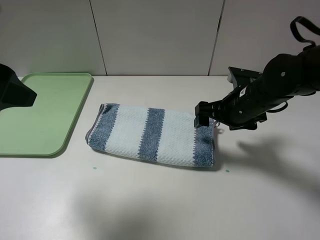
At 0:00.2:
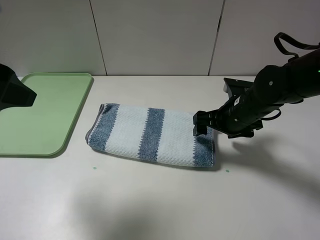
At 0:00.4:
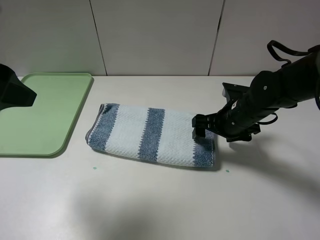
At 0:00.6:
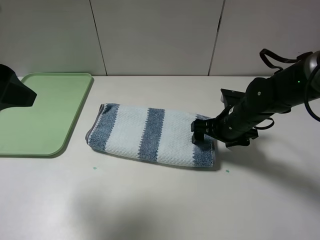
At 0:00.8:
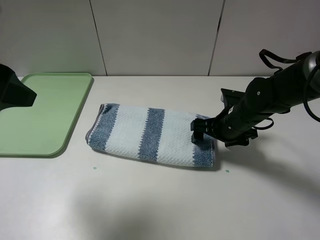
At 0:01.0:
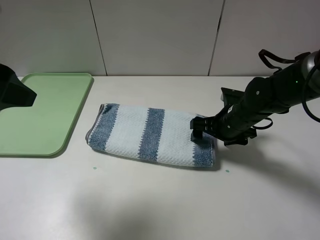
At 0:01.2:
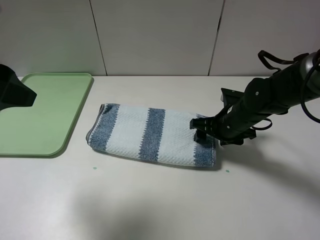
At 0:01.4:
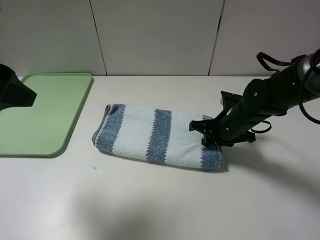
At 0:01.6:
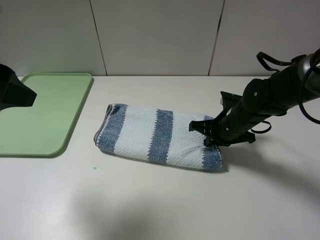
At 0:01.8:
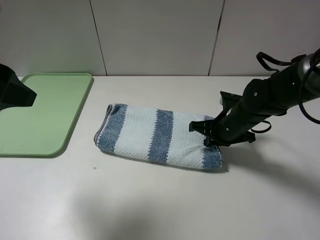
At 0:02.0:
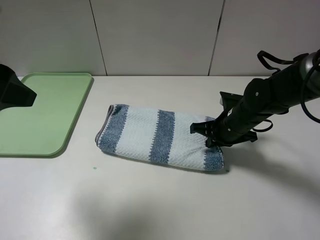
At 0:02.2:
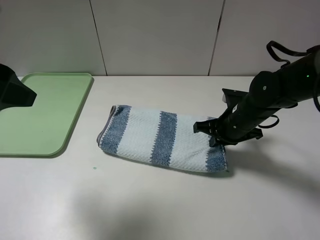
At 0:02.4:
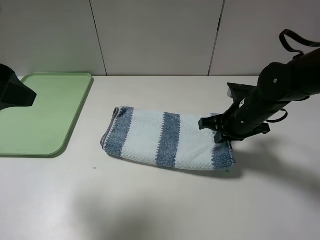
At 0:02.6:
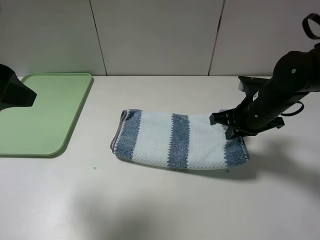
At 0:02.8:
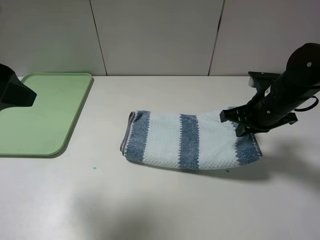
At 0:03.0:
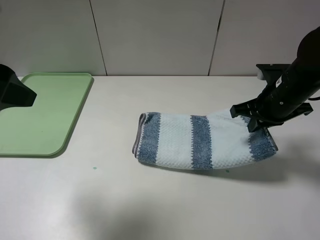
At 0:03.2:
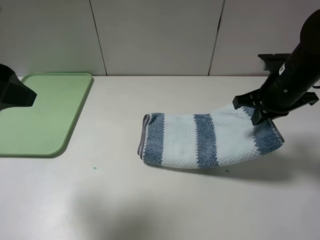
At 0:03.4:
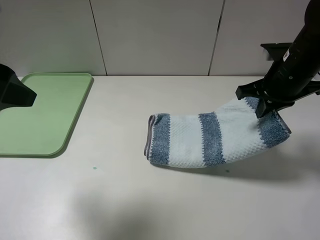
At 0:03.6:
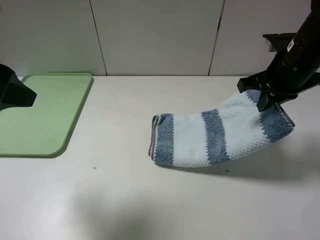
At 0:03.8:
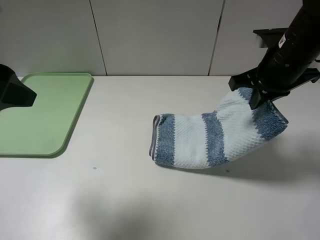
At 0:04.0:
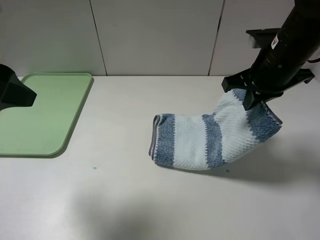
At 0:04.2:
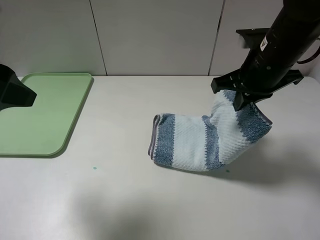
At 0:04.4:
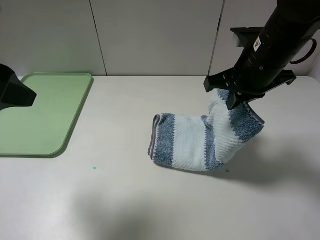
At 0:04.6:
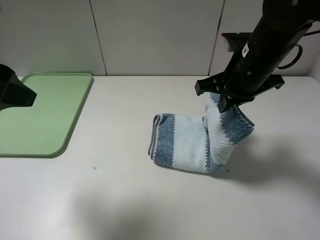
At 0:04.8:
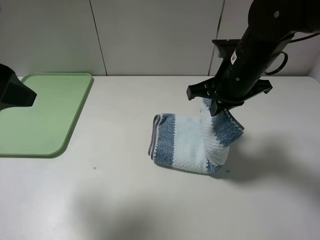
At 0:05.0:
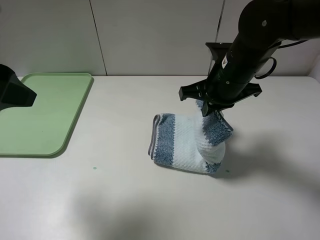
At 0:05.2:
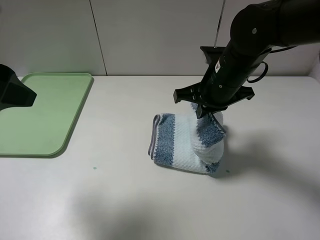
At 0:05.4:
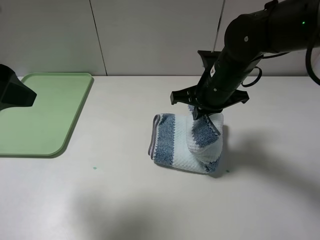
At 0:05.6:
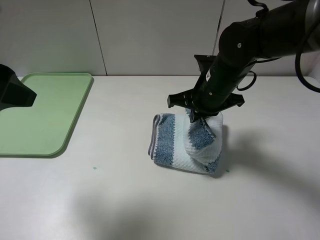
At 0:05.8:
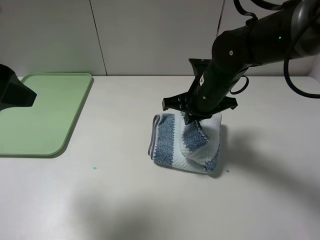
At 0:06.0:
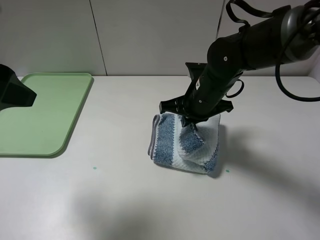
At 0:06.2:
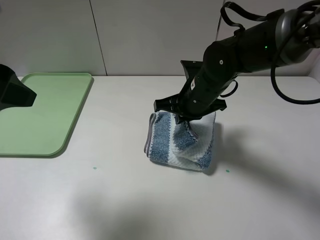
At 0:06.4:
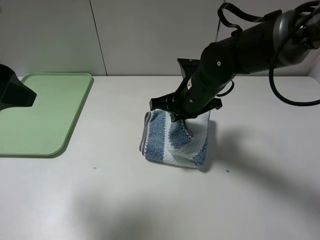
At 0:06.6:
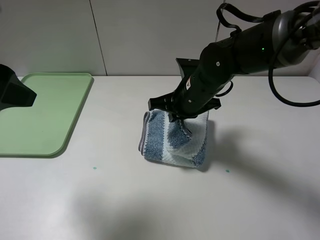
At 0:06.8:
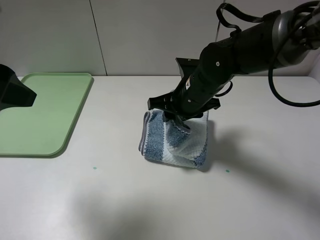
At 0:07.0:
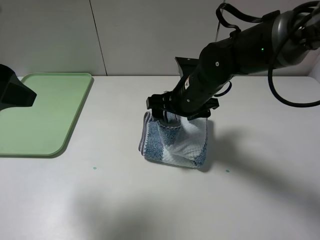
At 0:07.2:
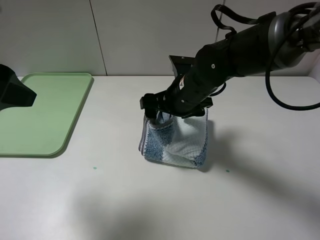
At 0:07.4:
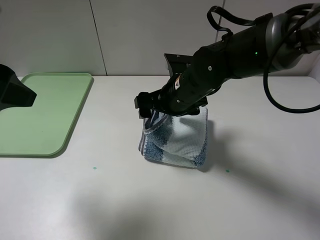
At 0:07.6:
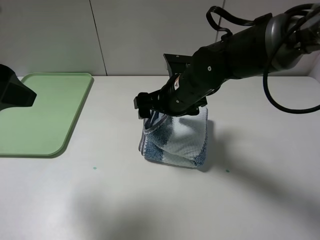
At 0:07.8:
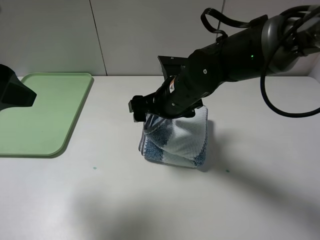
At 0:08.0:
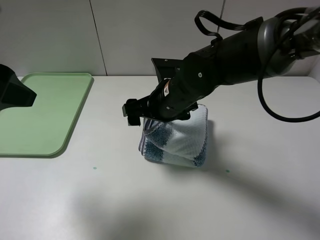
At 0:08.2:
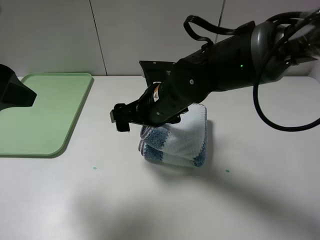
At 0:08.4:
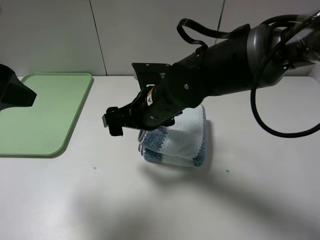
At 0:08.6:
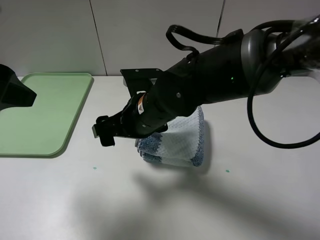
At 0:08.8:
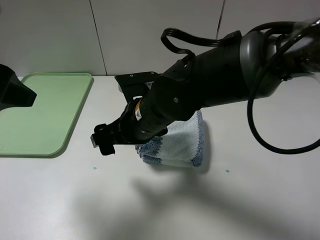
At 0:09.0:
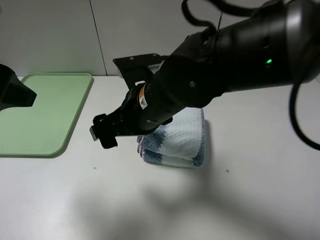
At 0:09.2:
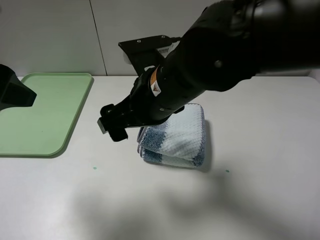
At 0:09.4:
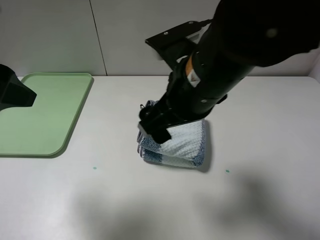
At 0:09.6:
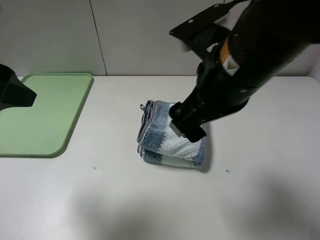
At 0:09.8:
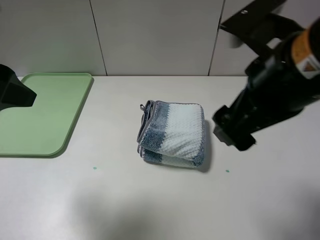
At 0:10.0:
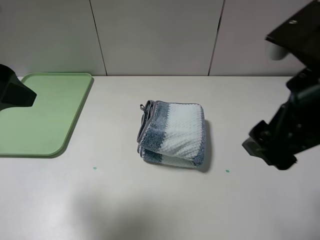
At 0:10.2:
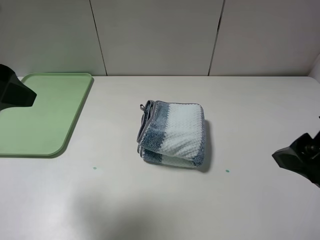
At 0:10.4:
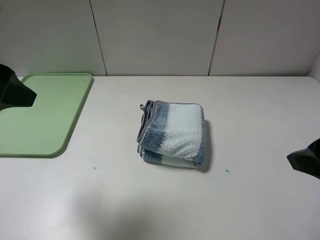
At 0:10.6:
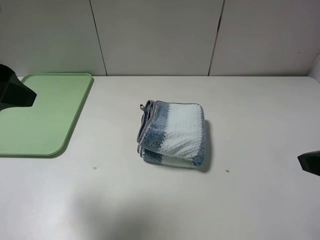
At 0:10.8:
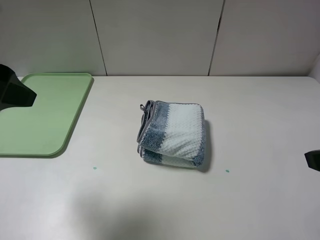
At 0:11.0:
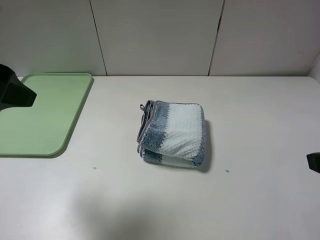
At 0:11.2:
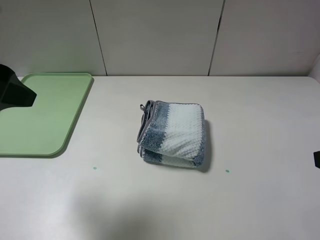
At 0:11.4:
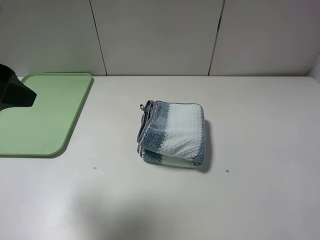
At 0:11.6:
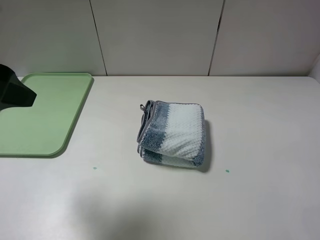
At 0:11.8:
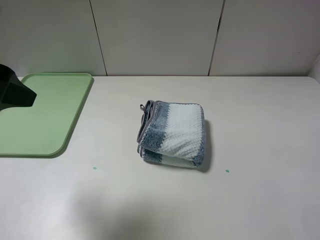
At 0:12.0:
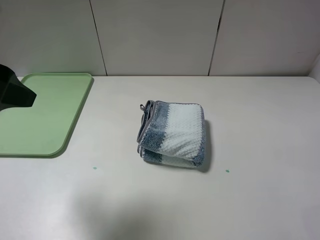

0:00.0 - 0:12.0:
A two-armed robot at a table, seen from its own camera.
Step, 0:02.0 - 0:09.2: Fold the blue white towel from right to left with right gripper.
0:00.0 - 0:01.6: The right gripper shifts approximately 5 cm downward, and closes.
0:01.6 - 0:03.0: The right gripper travels upward and to the right by about 10 cm.
0:03.0 - 0:04.4: The right gripper goes approximately 10 cm to the left and upward.
0:04.4 - 0:06.0: The right gripper goes roughly 10 cm downward and to the left.
0:06.0 - 0:07.6: The right gripper opens up.
0:07.6 - 0:09.0: The right gripper shifts roughly 10 cm backward.
0:09.0 - 0:10.4: The right gripper heads to the right and backward, covering approximately 25 cm.
0:10.4 - 0:12.0: The right gripper goes some 10 cm backward and to the right.

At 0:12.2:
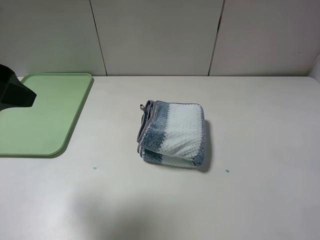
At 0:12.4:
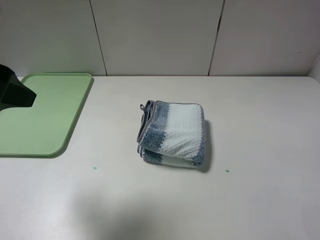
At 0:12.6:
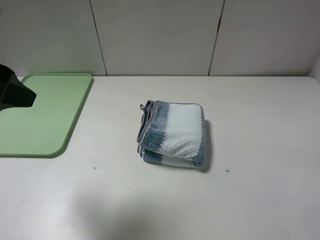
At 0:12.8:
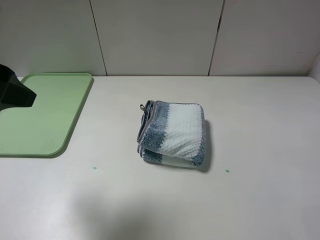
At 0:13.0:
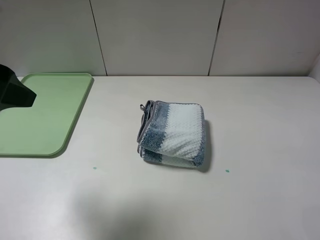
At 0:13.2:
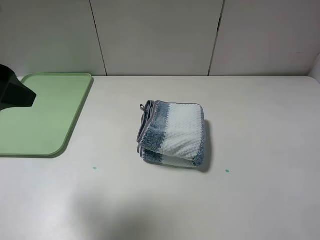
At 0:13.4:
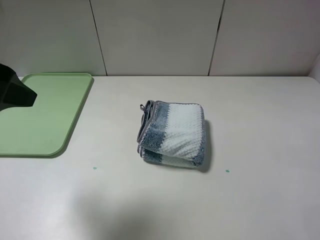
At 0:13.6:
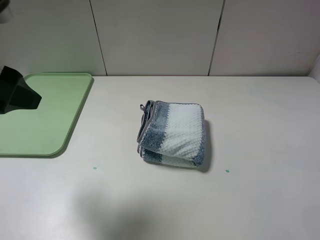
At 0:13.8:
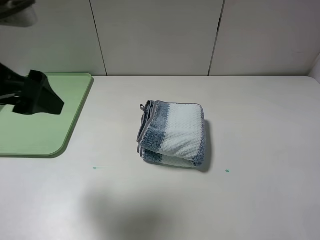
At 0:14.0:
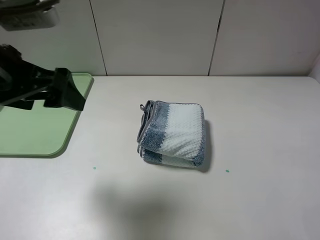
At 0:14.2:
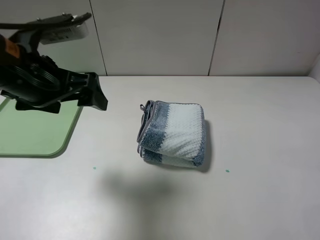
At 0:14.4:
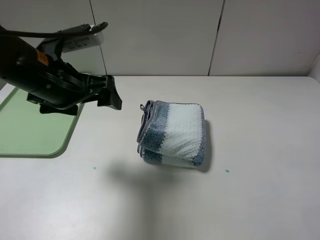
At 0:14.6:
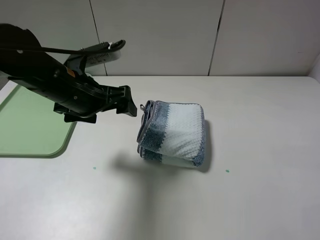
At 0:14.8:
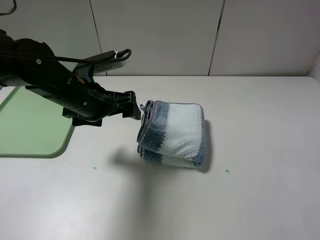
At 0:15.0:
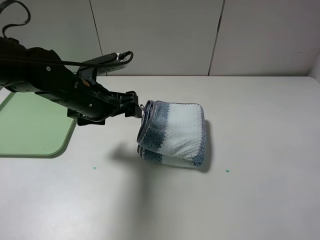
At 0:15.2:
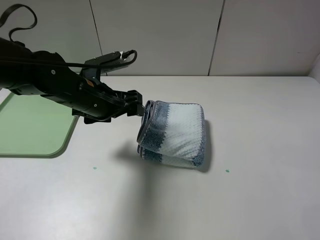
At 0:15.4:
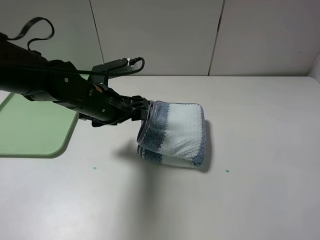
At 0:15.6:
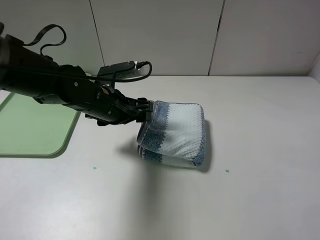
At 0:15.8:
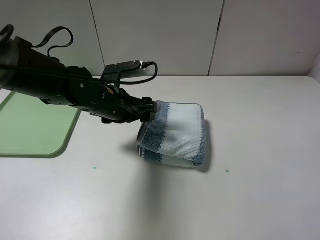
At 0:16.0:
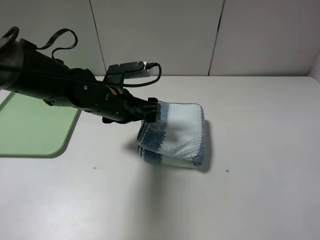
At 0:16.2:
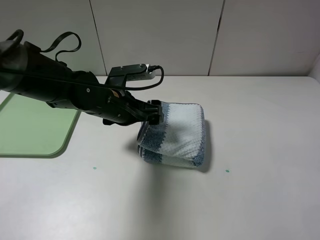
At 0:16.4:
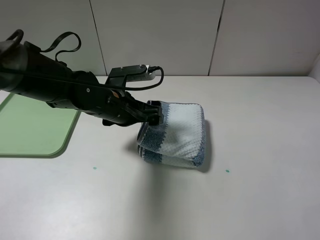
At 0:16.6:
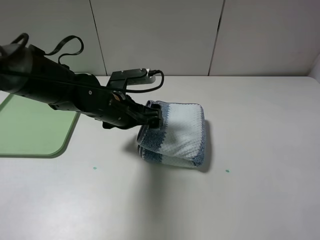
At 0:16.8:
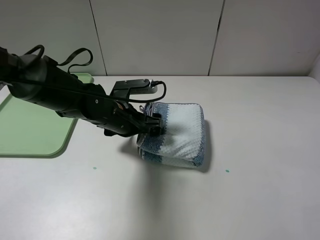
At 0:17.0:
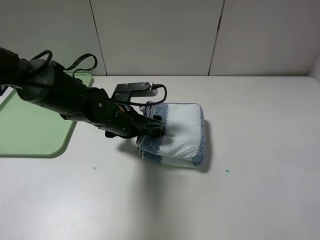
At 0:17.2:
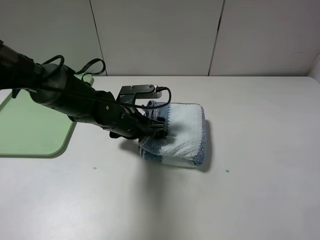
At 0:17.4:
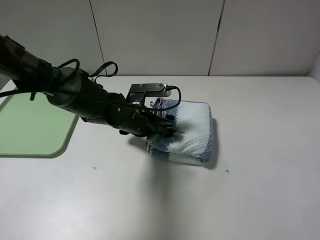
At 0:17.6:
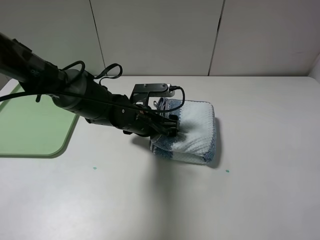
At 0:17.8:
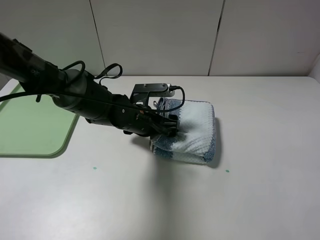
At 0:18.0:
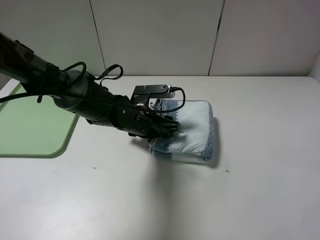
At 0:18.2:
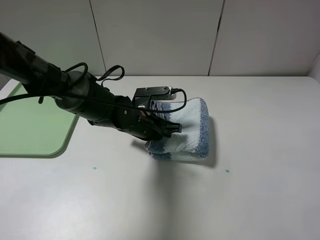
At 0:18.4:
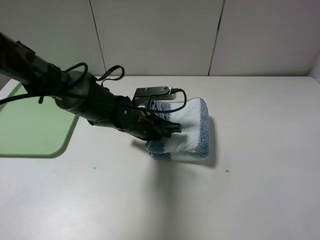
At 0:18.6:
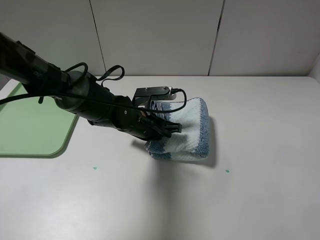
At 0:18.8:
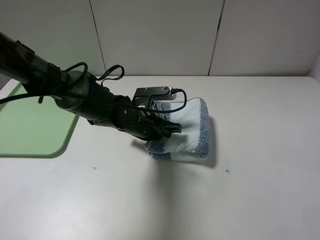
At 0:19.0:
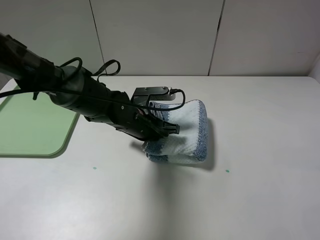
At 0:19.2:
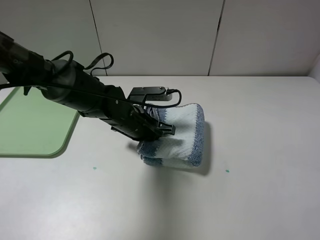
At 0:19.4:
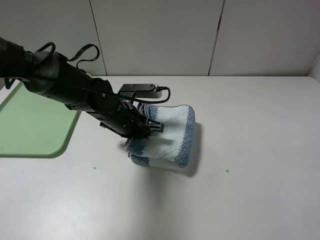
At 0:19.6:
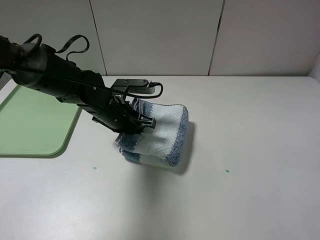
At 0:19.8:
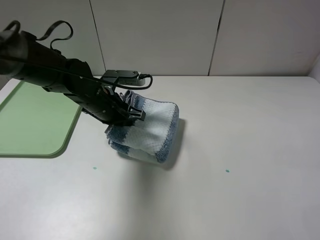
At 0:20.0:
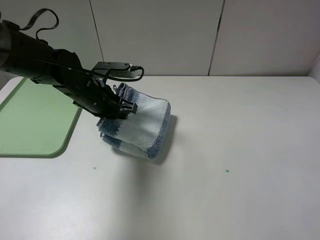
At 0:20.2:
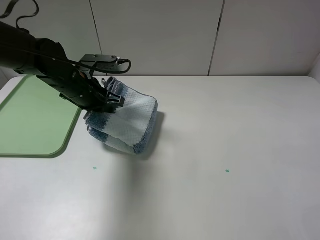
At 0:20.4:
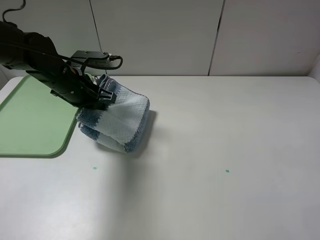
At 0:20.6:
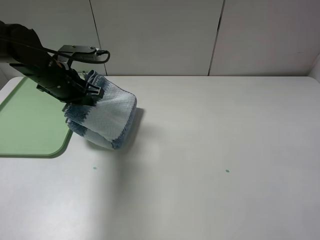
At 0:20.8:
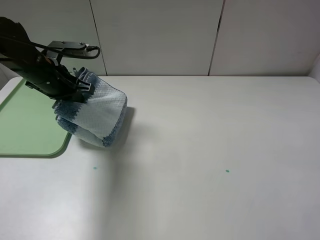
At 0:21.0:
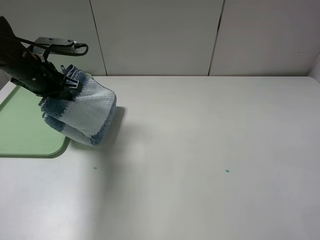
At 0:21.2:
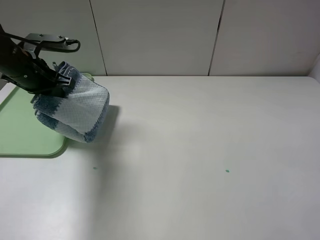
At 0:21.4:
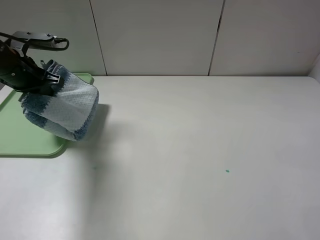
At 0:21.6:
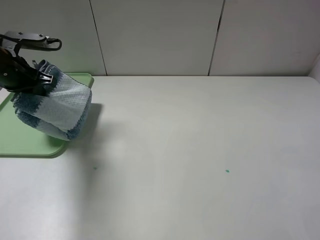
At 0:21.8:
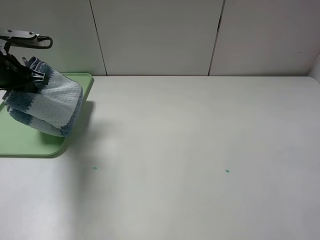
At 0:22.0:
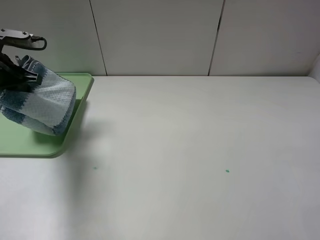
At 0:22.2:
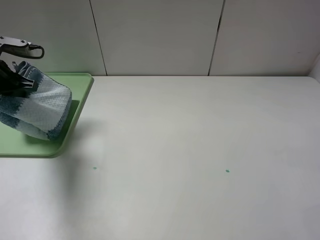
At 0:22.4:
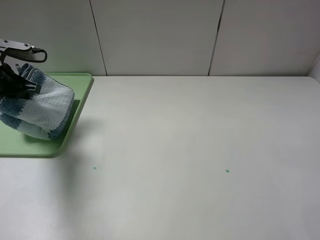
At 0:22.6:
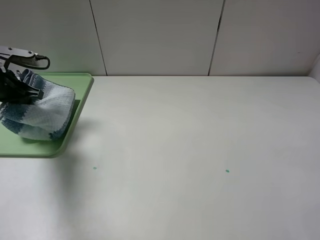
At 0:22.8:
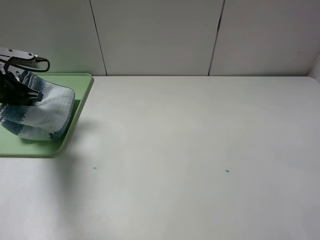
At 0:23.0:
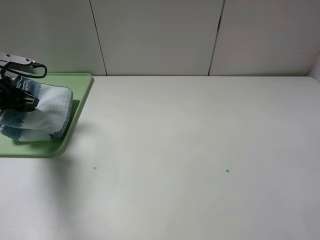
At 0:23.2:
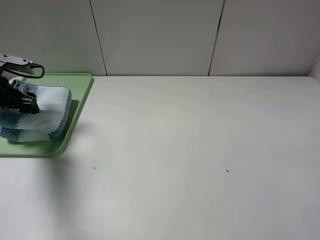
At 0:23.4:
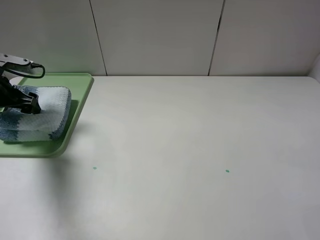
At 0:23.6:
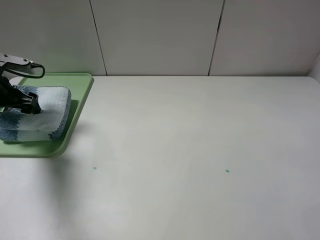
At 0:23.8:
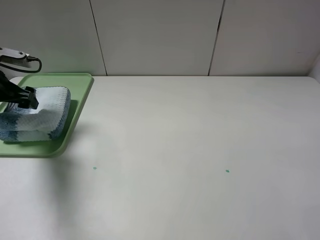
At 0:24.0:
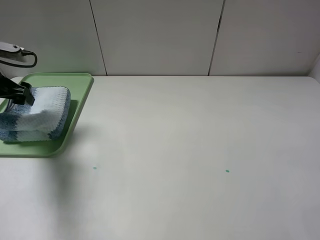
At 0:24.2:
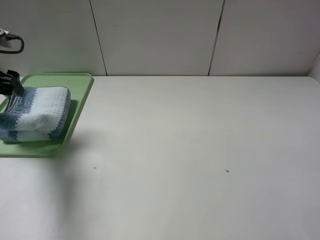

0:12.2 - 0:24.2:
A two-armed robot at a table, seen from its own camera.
Step, 0:12.2 - 0:18.8: Grasp the blue white towel with the left gripper.
0:12.2 - 0:13.8: The grippers stay close to where they were, moving slightly.
0:13.8 - 0:15.2: The left gripper goes some 20 cm downward, forward and to the right.
0:15.2 - 0:16.6: The left gripper changes place by some 5 cm.
0:16.6 - 0:18.2: The left gripper shifts by approximately 5 cm, and closes its fingers.
0:18.2 - 0:19.8: The left gripper is displaced to the left and upward by about 10 cm.
0:19.8 - 0:21.2: The left gripper shifts roughly 15 cm to the left and upward.
0:21.2 - 0:22.6: The left gripper shifts roughly 10 cm to the left.
0:22.6 - 0:24.2: The left gripper is displaced upward by roughly 5 cm, and opens its fingers.
